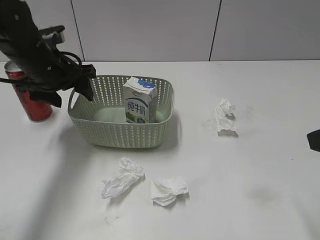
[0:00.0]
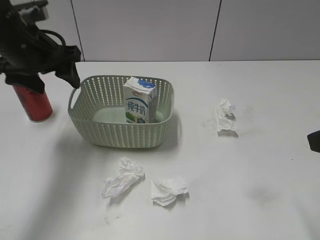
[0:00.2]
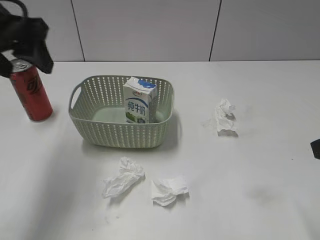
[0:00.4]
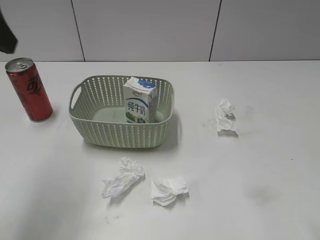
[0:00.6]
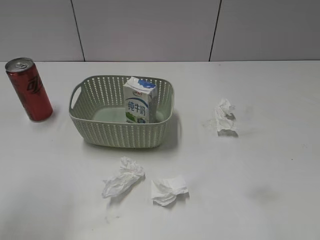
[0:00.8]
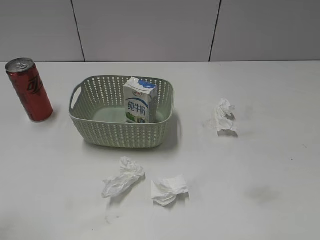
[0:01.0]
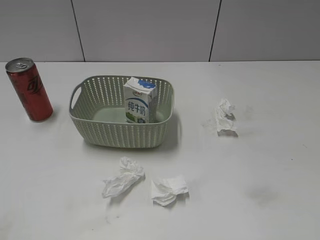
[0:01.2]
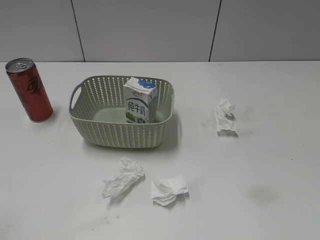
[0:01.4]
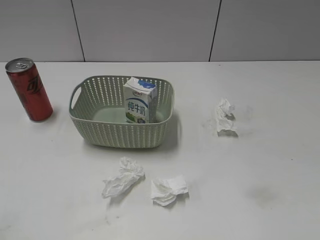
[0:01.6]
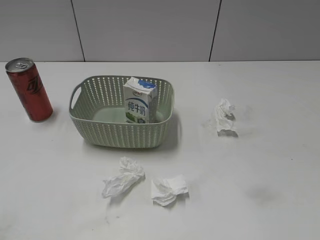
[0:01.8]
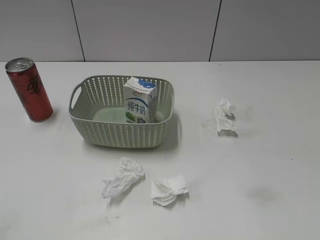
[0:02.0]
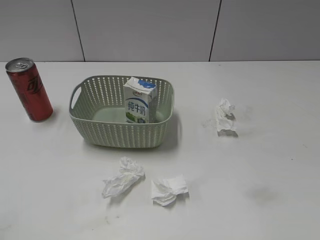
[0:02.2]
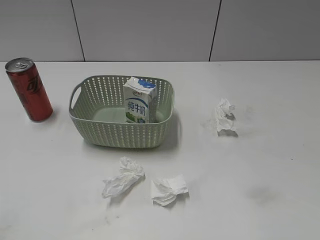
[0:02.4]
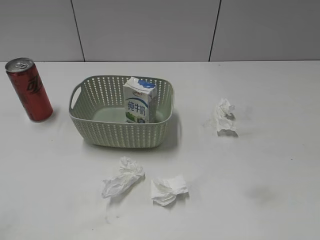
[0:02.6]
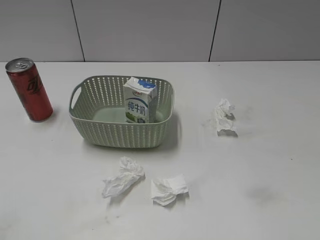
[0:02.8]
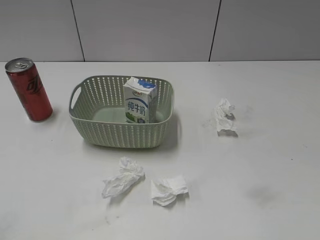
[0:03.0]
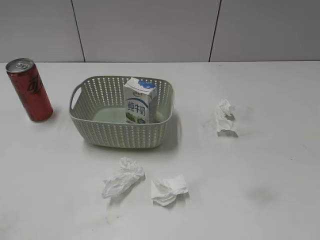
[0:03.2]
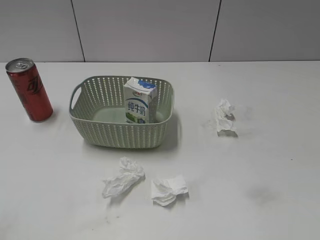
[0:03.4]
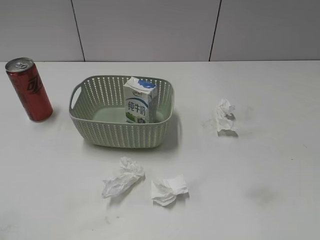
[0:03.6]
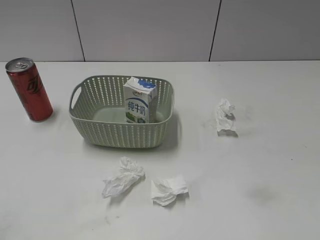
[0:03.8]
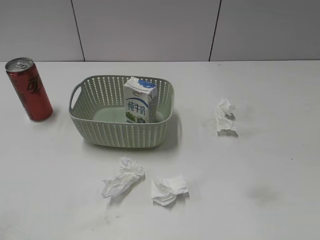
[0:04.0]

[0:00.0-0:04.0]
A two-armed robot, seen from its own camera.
0:00.0 to 0:01.4: The left gripper goes about 35 cm backward.
